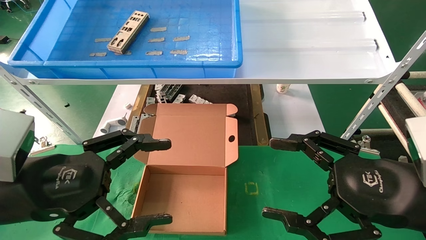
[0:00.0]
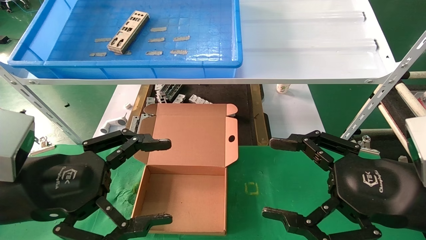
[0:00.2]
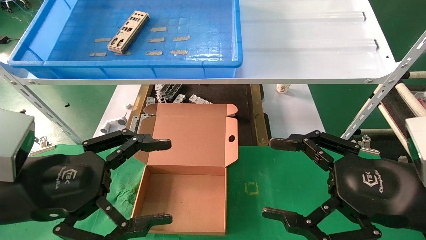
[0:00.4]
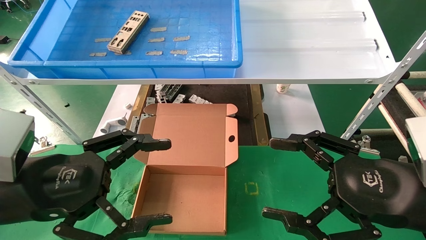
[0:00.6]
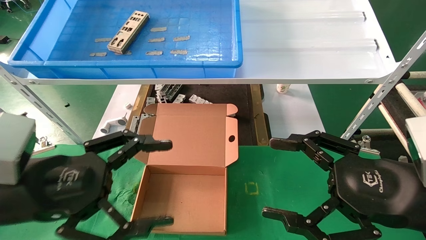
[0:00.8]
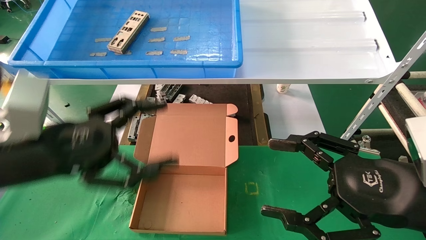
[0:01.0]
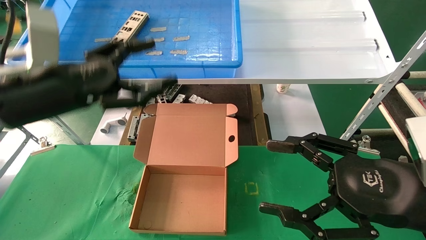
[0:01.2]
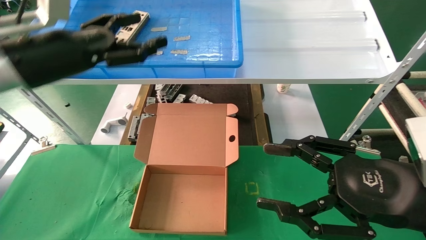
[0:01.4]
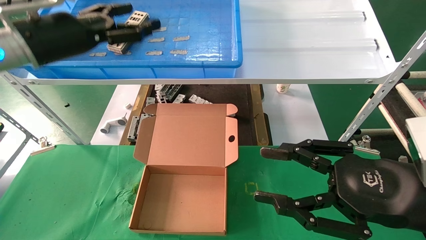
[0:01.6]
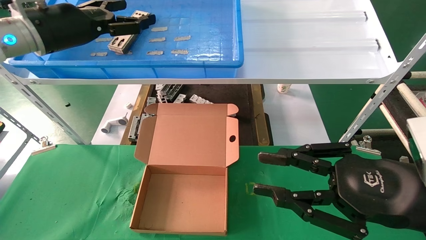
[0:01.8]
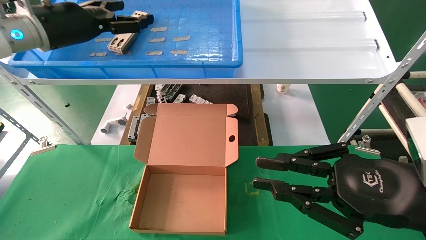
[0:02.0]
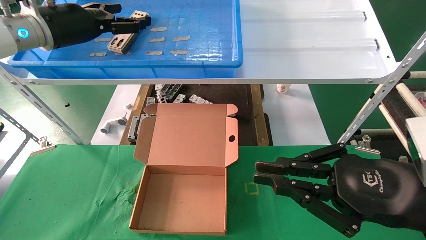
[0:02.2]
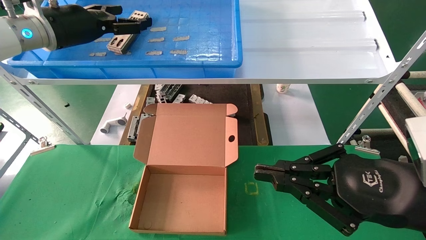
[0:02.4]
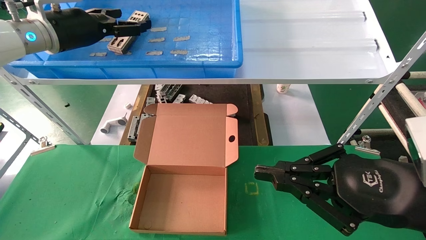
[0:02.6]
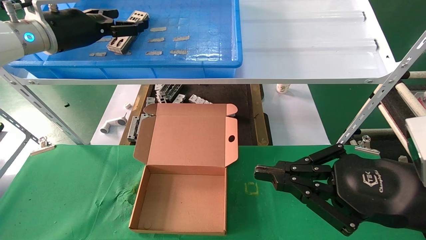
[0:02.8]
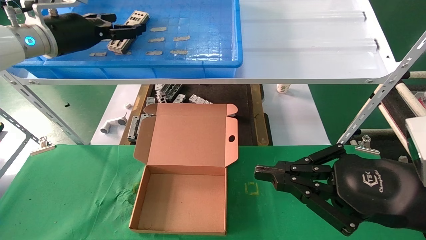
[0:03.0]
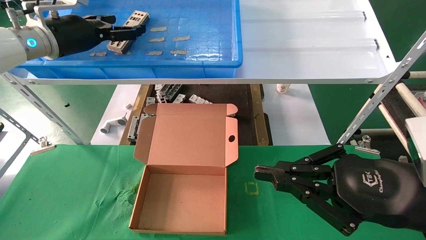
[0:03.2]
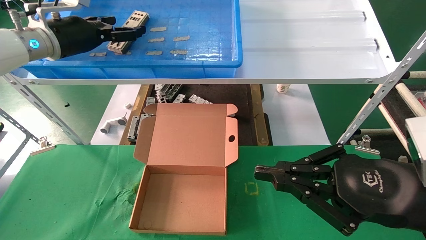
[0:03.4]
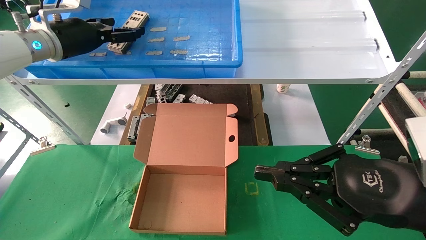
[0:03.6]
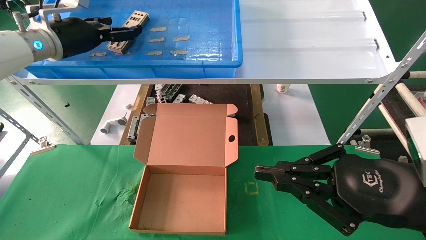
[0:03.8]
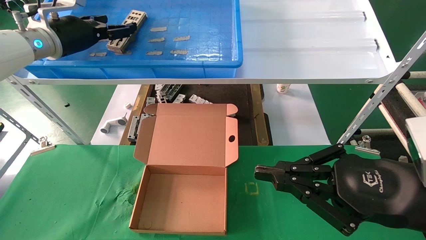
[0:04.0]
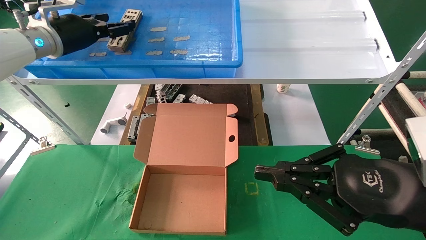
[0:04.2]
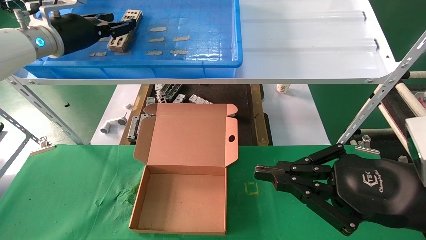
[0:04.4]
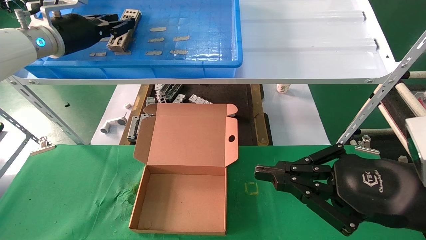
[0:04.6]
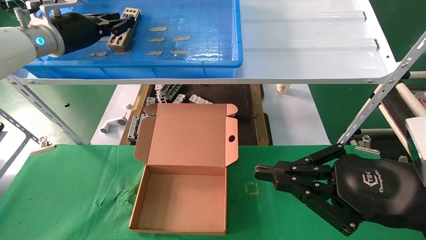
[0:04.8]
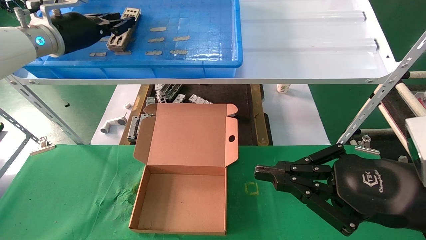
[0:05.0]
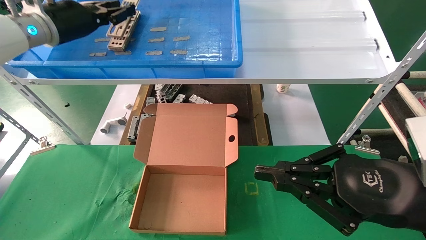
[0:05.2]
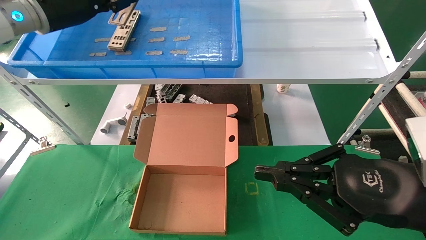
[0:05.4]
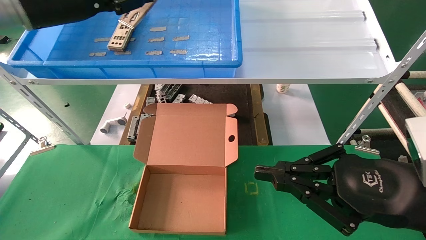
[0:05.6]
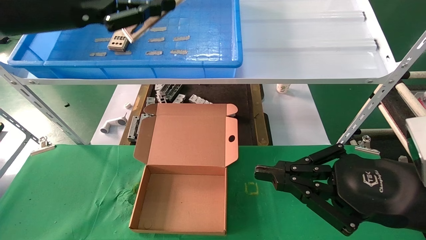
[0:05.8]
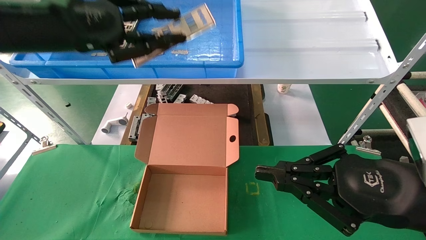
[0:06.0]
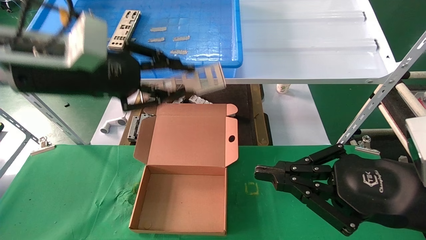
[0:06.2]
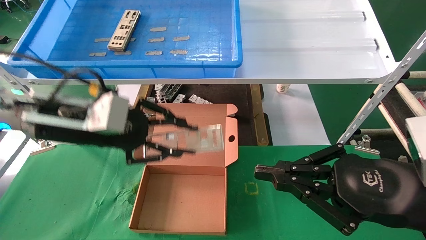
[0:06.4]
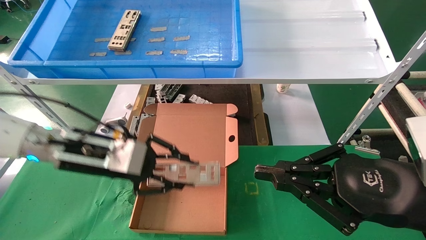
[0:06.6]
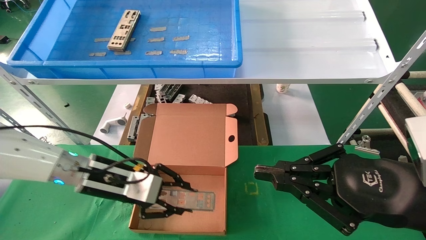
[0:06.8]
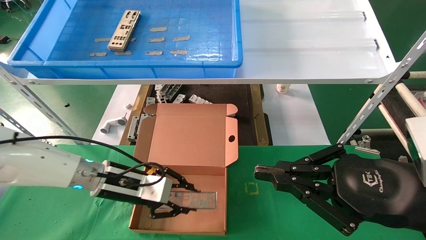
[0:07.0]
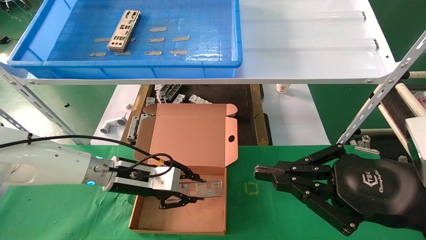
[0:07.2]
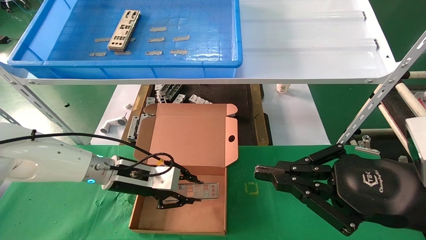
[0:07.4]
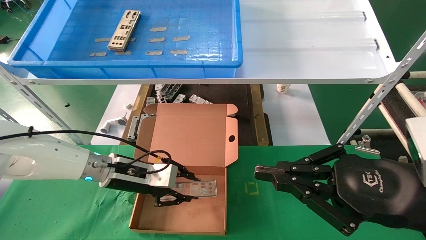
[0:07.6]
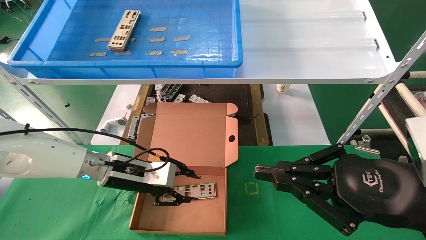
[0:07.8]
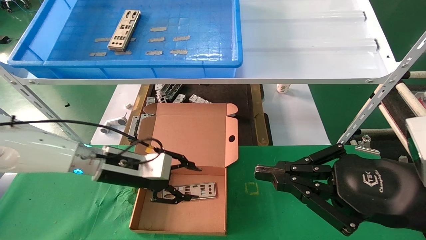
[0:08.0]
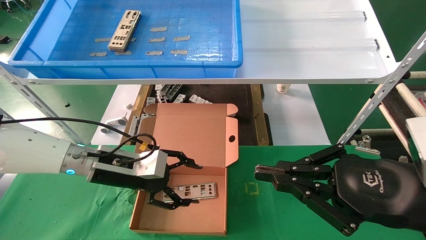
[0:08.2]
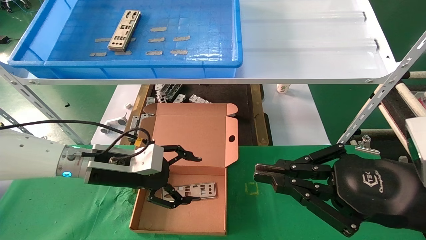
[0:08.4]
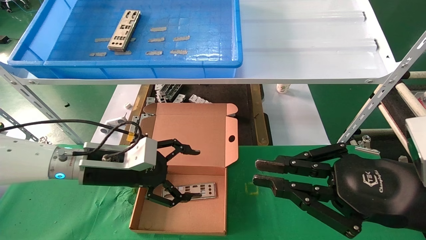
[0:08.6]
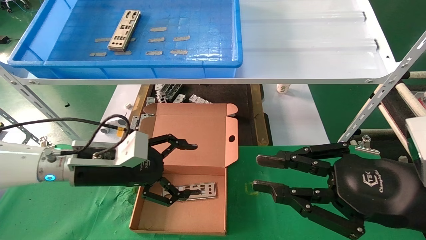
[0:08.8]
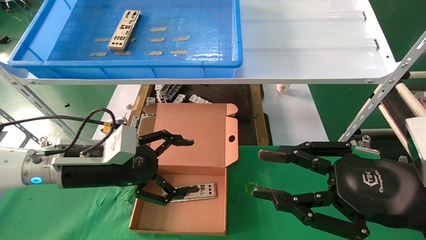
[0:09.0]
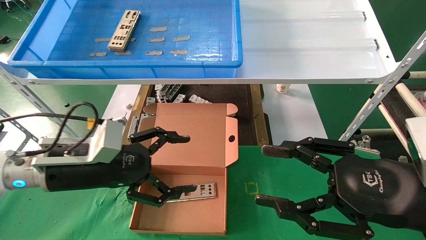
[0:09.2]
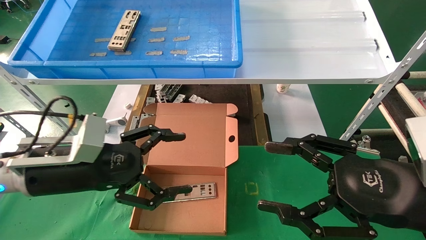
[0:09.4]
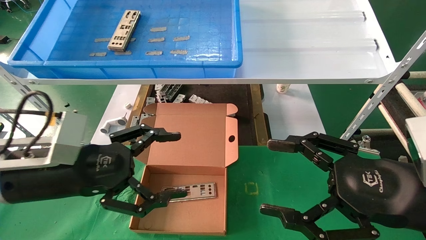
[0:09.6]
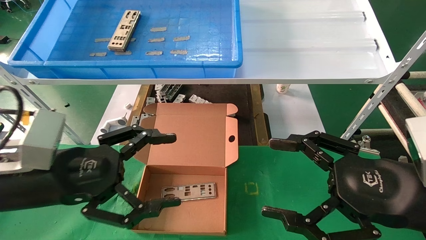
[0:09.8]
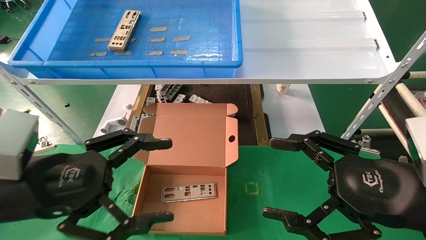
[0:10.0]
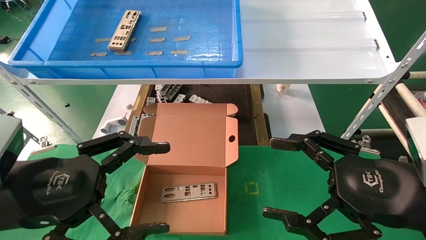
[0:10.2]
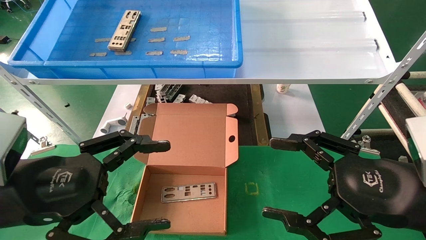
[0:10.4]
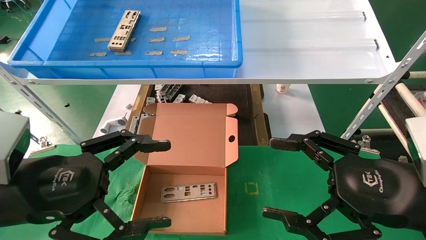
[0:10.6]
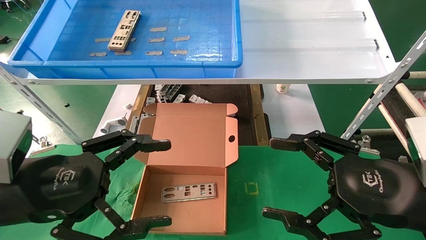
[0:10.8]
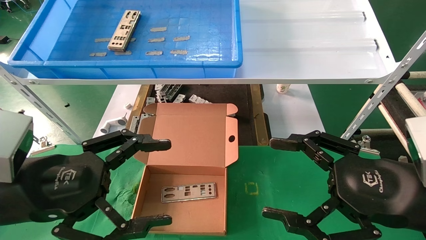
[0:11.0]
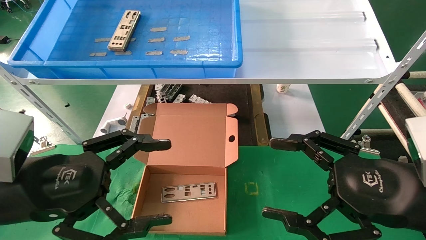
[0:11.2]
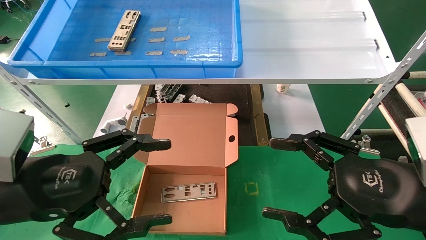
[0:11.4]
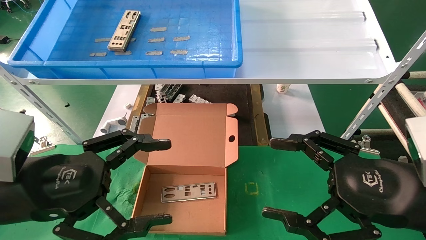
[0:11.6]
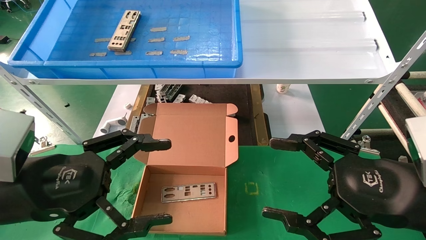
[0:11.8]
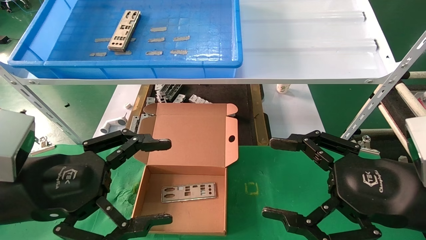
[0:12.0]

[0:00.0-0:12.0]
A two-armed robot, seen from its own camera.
Task of the whole recording: pick up the parts on the tray and put them in the cardboard box.
Step, 0:01.2 to 0:05.2: Pick up the IO bracket from the container box.
Step, 0:05.4 to 0:07.8: Place the IO bracket into the ingredient slot.
0:00.0 to 0:01.6: The right gripper closes its fingers. The left gripper goes some 25 cm forward and upward.
0:01.6 to 0:03.0: The right gripper closes; the left gripper moves forward, approximately 5 cm.
0:03.0 to 0:04.4: The left gripper closes.
0:04.4 to 0:06.0: The left gripper shifts some 15 cm backward and to the right, and closes up.
0:06.0 to 0:07.6: The left gripper moves downward, some 25 cm.
0:07.6 to 0:09.0: The left gripper moves backward and upward, roughly 10 cm, and opens its fingers.
0:09.0 to 0:10.4: The right gripper opens its fingers. The left gripper is displaced backward by some 15 cm.
0:10.4 to 0:12.0: Neither gripper changes place.

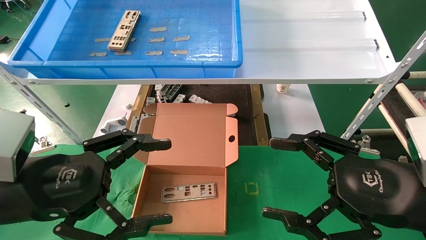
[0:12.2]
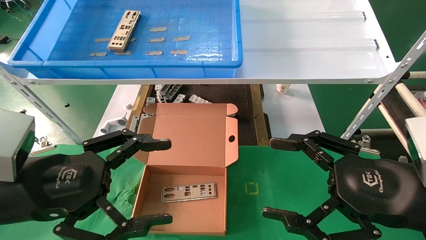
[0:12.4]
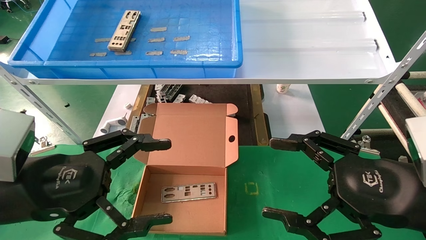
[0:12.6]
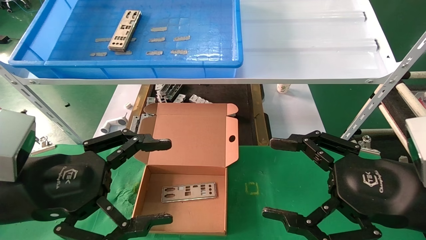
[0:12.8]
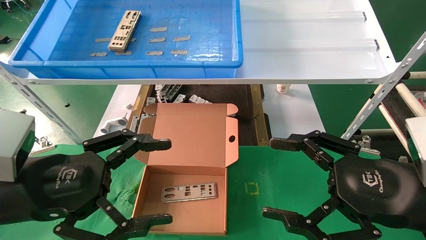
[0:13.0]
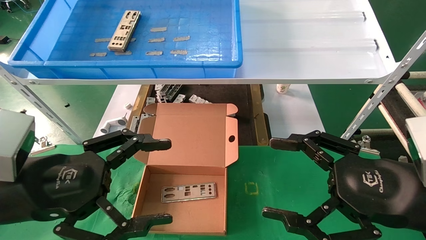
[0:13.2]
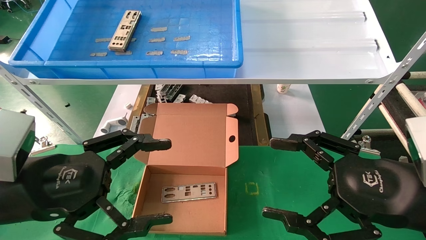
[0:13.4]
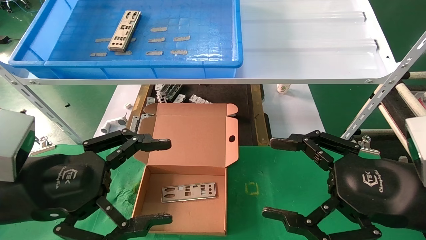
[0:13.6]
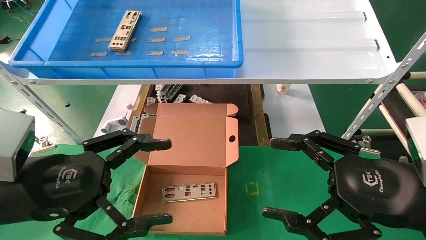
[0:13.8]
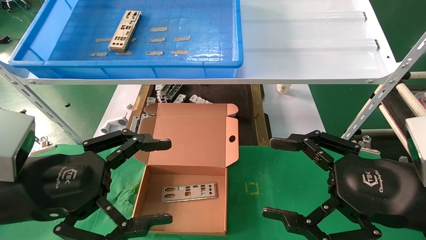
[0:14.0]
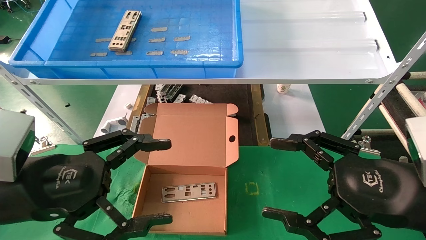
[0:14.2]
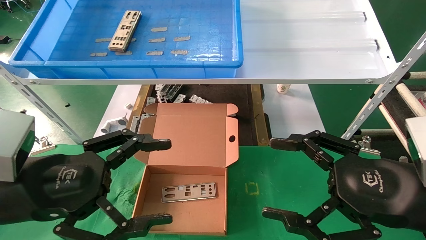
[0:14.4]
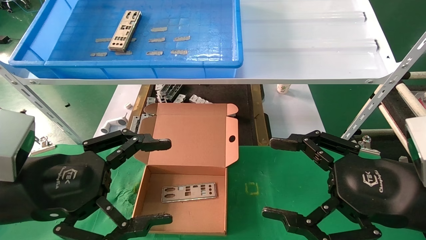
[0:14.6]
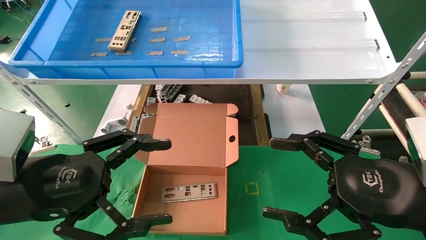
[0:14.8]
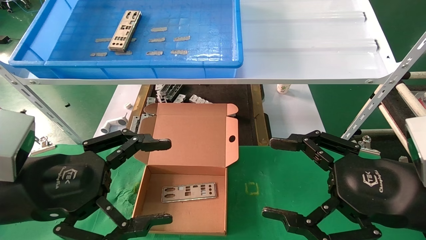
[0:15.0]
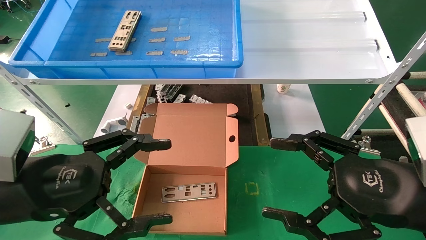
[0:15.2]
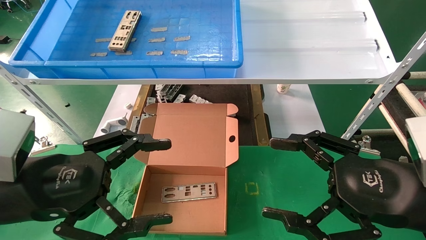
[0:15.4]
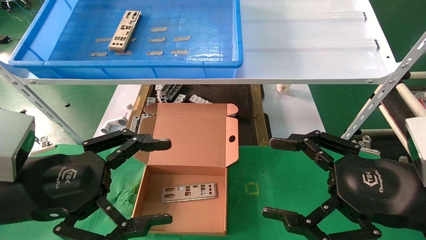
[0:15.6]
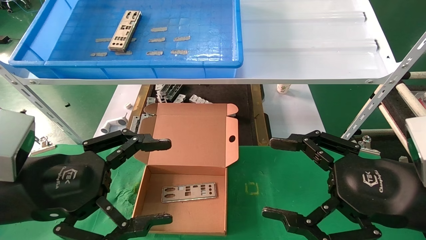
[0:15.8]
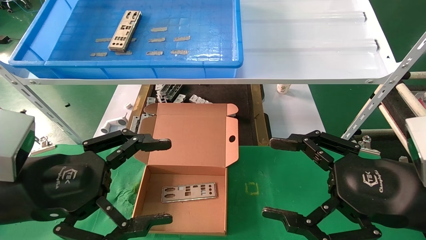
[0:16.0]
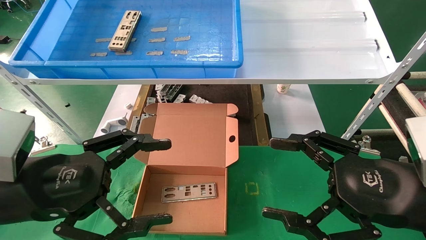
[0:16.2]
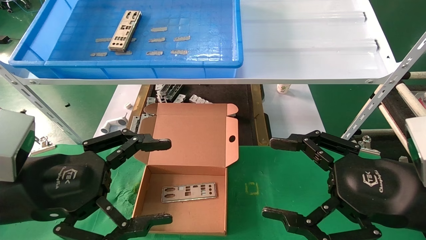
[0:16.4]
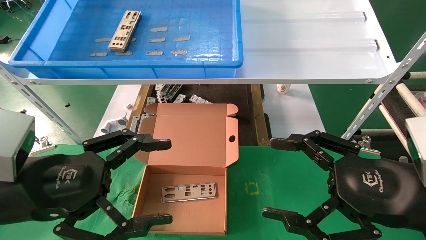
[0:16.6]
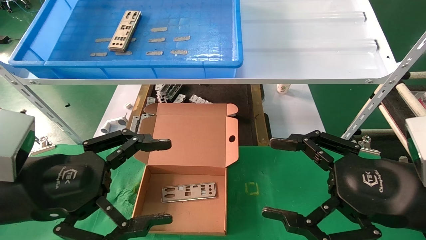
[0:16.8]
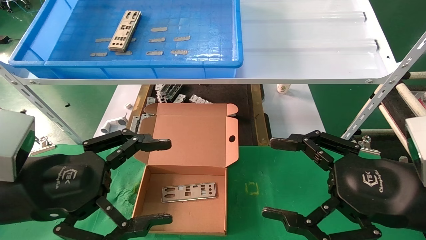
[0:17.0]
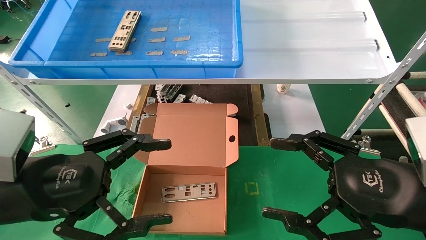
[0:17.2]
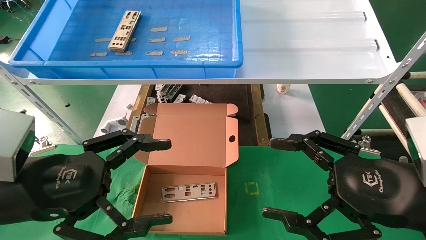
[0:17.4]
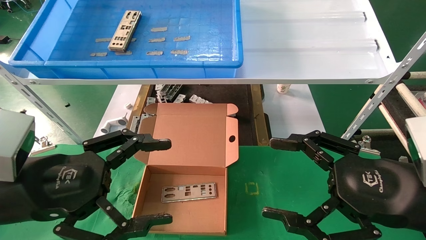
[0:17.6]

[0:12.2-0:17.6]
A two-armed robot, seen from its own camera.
Task of the whole recording: pick up the parts on the tray and put them in the cardboard box.
0:12.2 to 0:17.6: Neither gripper changes place.
